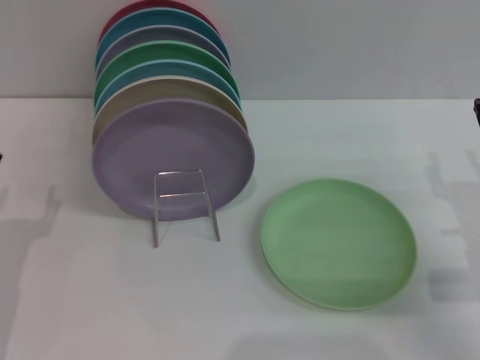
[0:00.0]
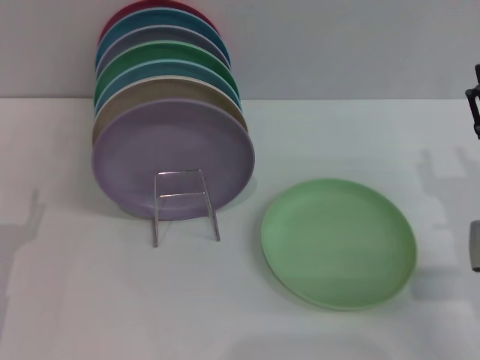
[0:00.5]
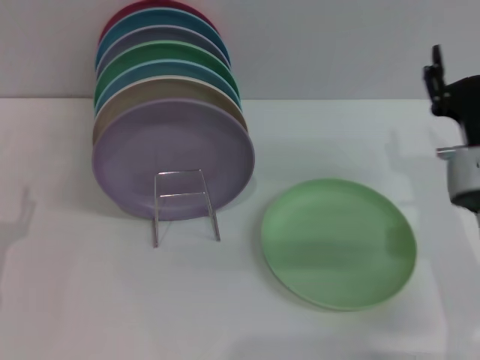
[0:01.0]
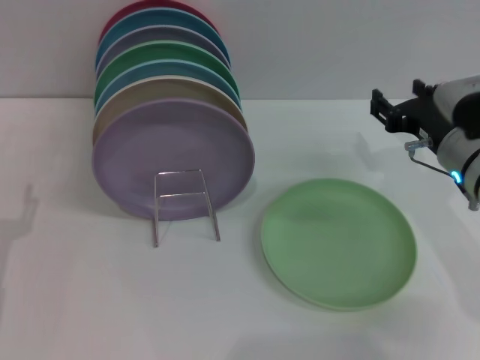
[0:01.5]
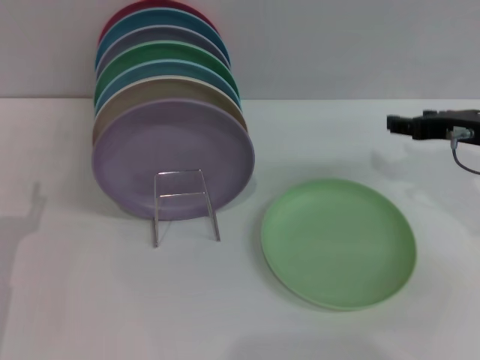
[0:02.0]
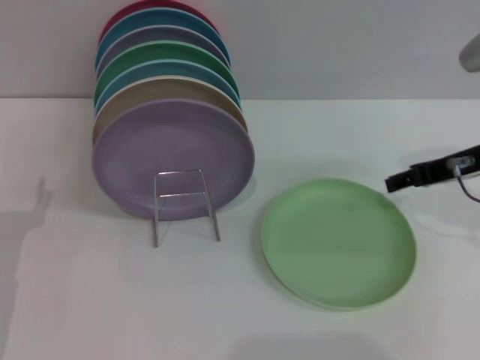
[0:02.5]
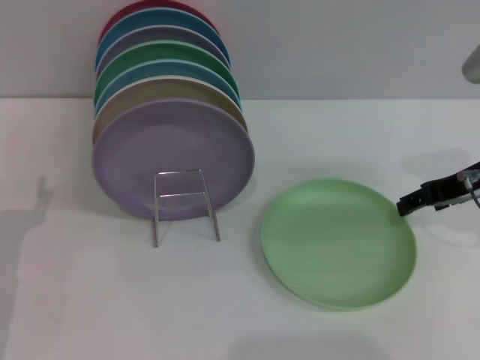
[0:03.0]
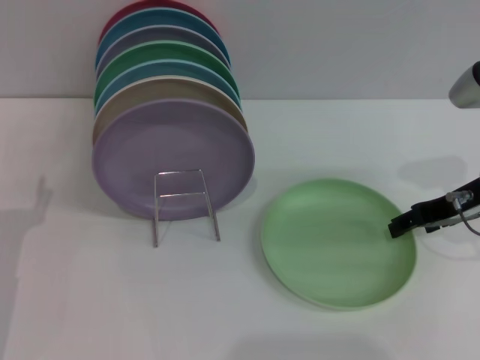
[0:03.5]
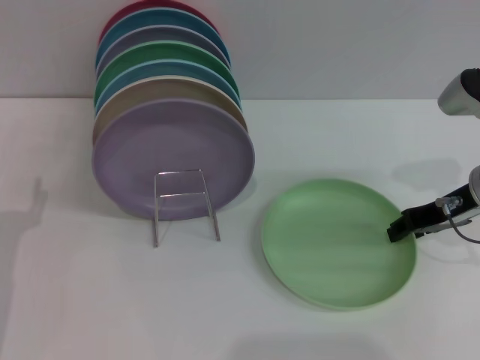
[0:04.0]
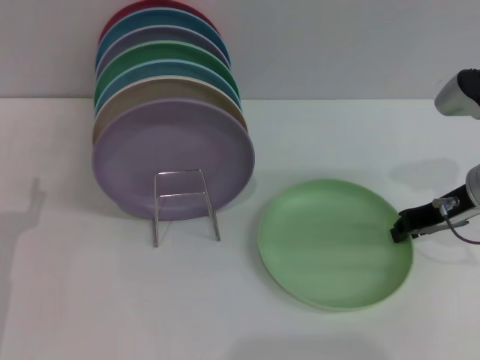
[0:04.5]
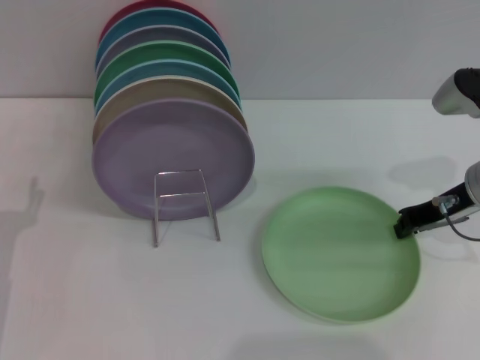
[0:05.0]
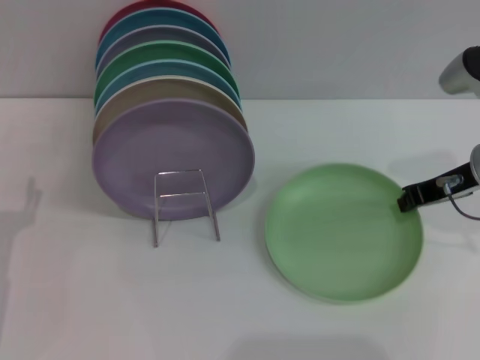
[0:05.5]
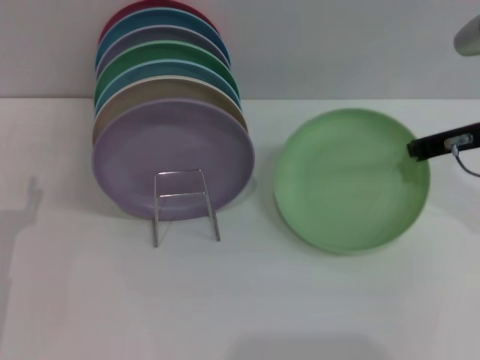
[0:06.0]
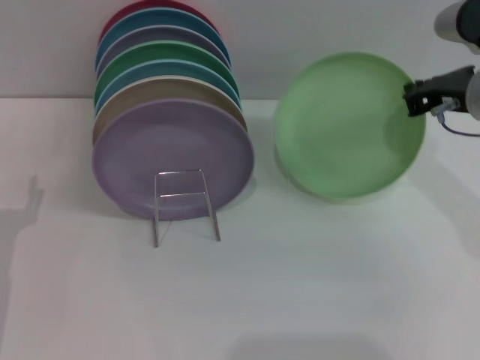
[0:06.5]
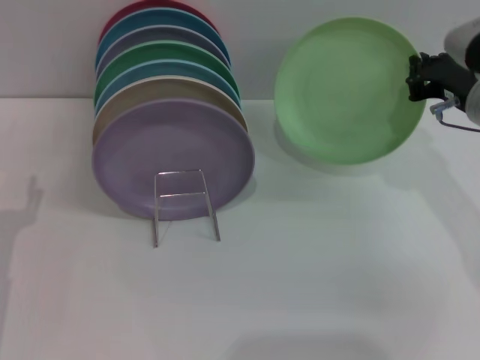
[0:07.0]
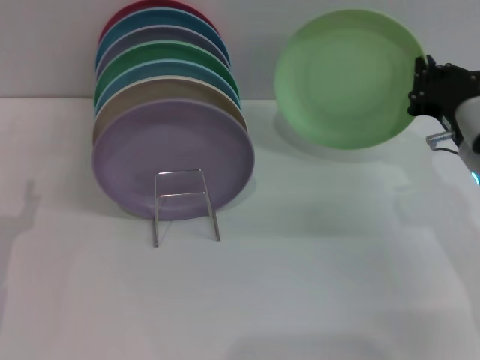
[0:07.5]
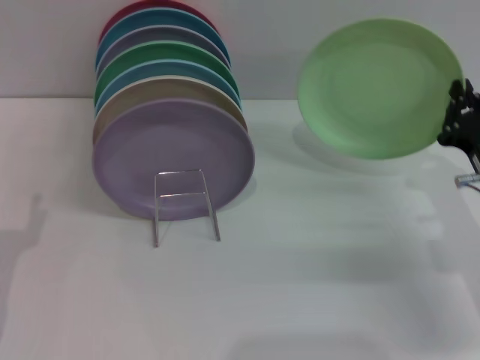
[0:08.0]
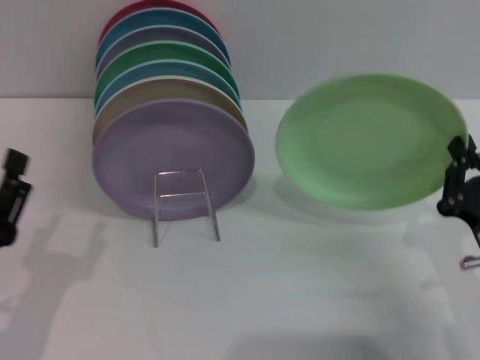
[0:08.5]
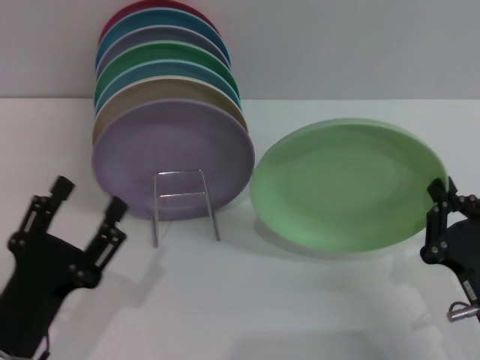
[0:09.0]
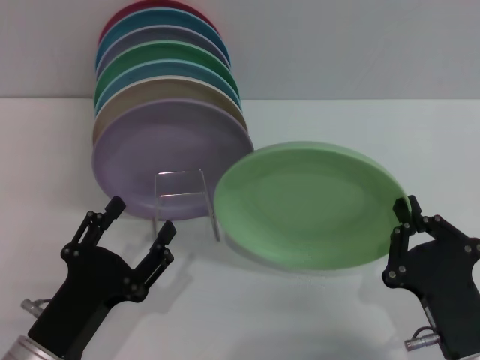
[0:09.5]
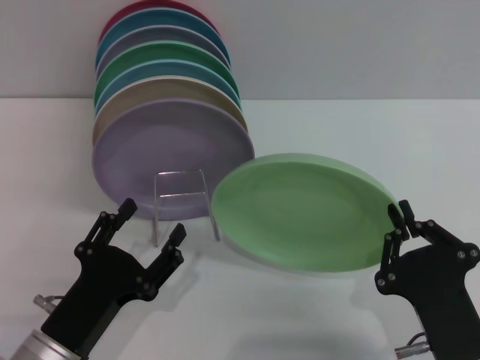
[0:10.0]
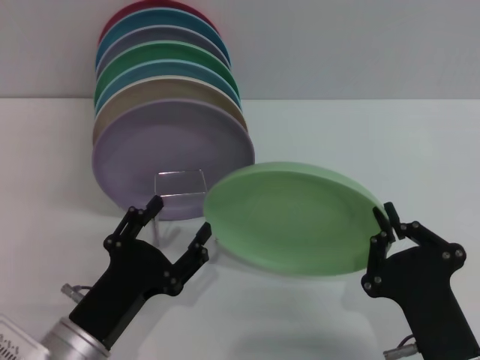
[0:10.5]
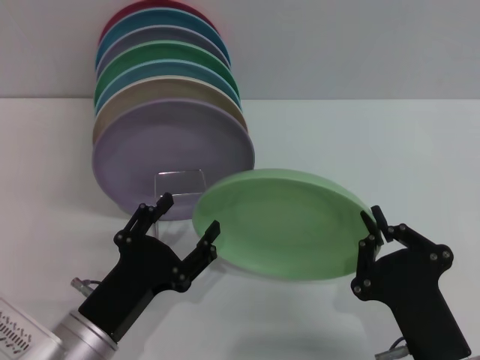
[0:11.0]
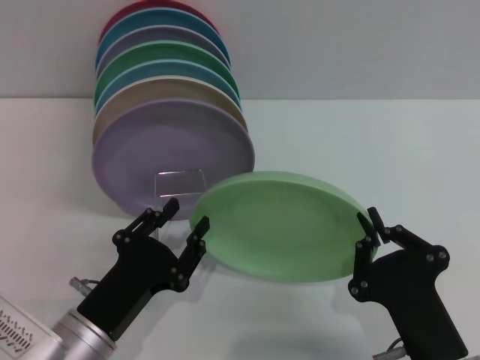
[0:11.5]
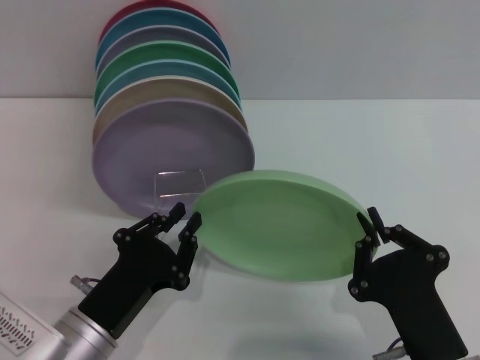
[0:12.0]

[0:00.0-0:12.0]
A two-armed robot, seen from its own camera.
Task of the whole recording: Grip the plate with one hand, pass it to the other, then set it on the shelf.
Step, 0:00.0 to 0:06.0: Pick up the plate with the right gripper.
0:00.0 to 0:02.0: The right gripper goes roughly 15 cm forward and upward.
0:04.0 to 0:06.0: The right gripper closes its fingers.
0:06.0 to 0:08.0: The right gripper is displaced downward and backward by some 15 cm.
0:08.0 to 0:10.0: The right gripper shifts roughly 20 cm backward and to the left; the left gripper moves to the right, roughly 10 cm.
0:10.0 to 0:12.0: The left gripper closes up.

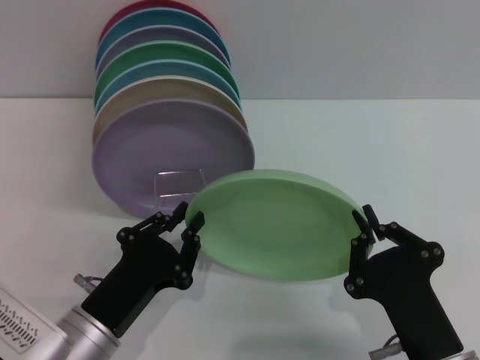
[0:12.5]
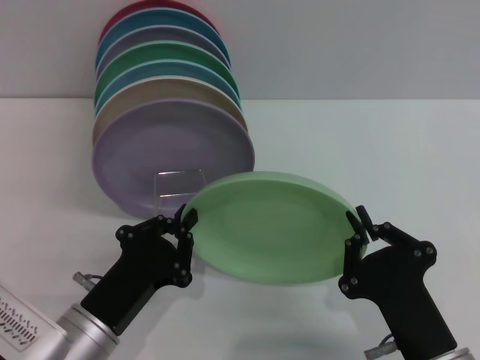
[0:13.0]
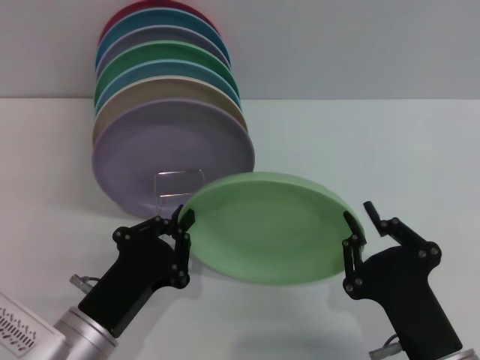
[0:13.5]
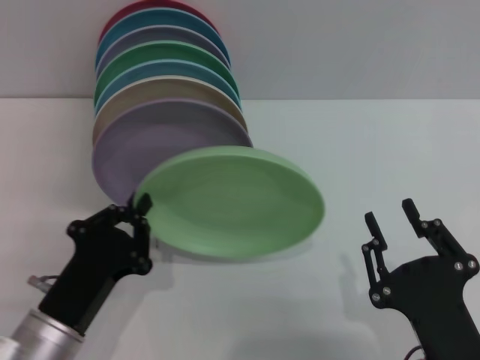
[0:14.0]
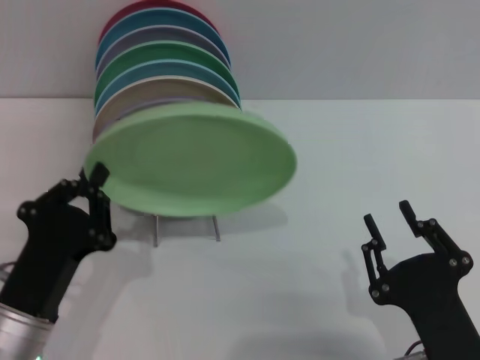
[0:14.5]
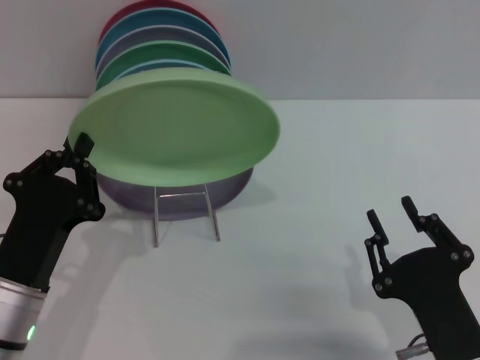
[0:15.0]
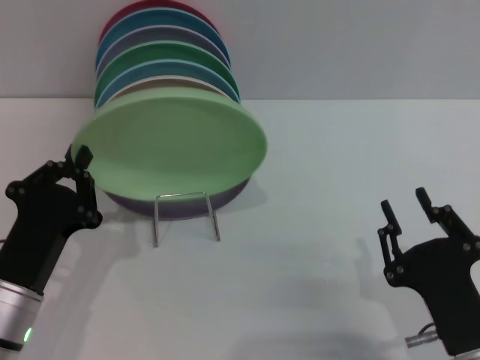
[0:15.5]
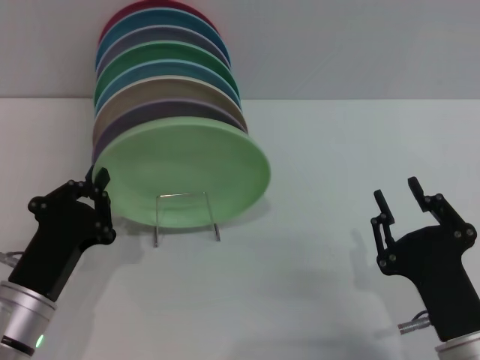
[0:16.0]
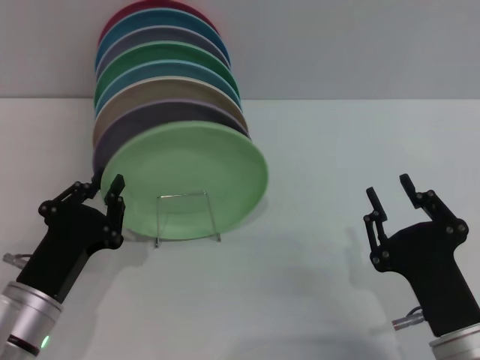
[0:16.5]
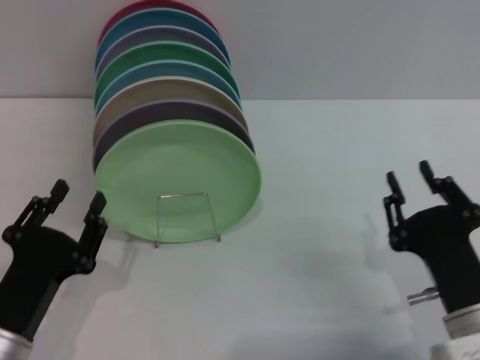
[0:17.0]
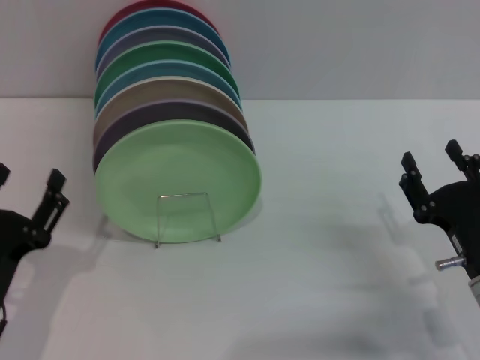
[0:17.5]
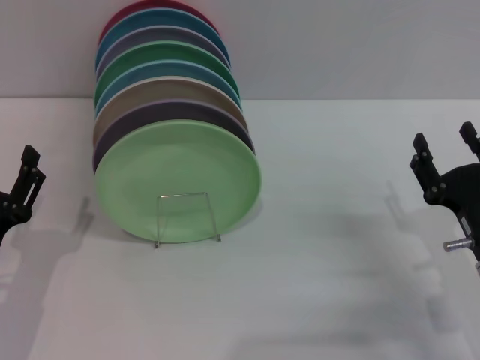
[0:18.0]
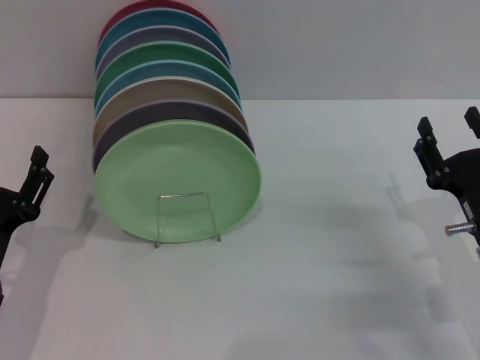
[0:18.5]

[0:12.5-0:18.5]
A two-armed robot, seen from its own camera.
Task of the whole recording: Grip the plate with one hand, pass it to the other, then set it on the shelf.
Step, 0:12.5 to 0:14.5: Pass the plate from the right gripper to the left gripper.
Step, 0:15.0 to 0:17.0: Place the plate on the shelf with the left gripper.
0:12.5 to 0:14.5: The right gripper opens.
0:14.5 to 0:16.5: The grippers make only small movements.
0:16.5 to 0:18.5: The right gripper moves forward and to the right, some 10 cm, and opens its fingers; the left gripper opens up.
